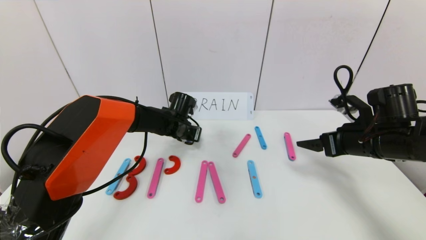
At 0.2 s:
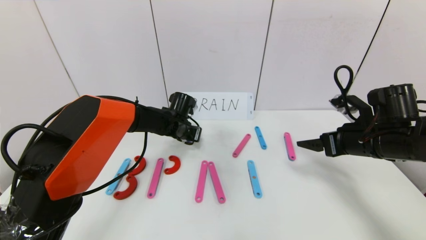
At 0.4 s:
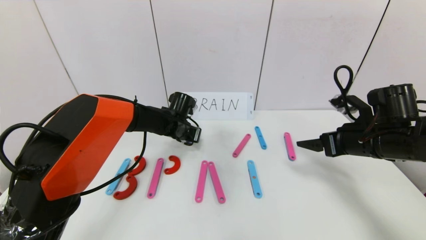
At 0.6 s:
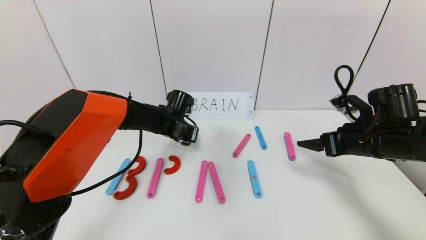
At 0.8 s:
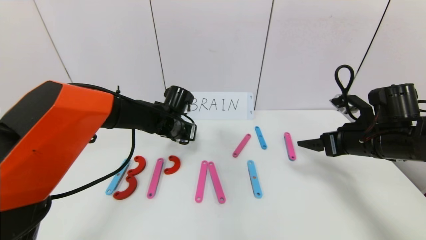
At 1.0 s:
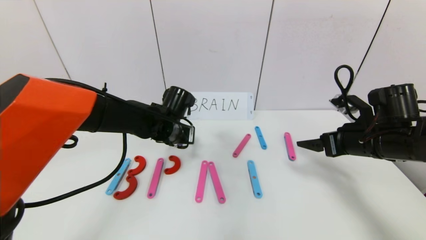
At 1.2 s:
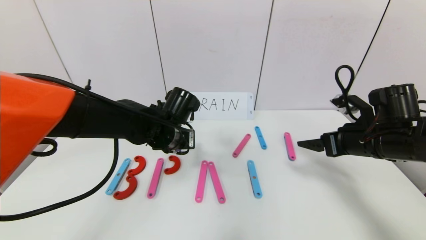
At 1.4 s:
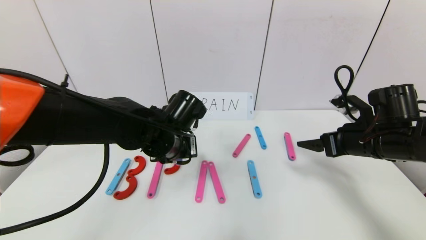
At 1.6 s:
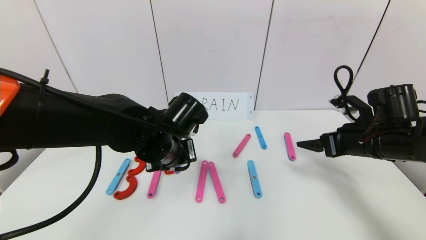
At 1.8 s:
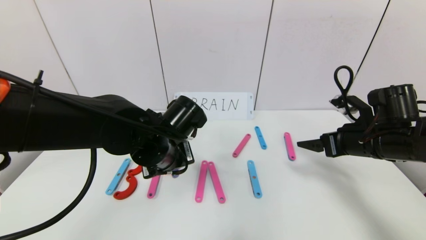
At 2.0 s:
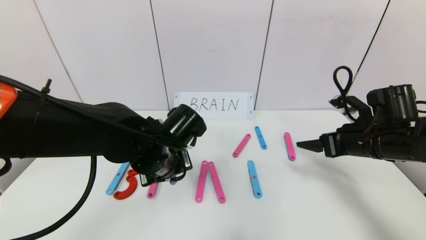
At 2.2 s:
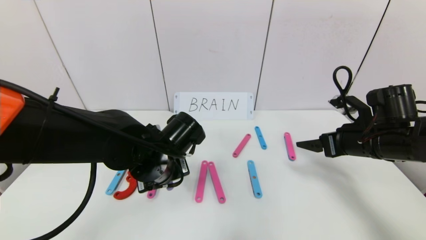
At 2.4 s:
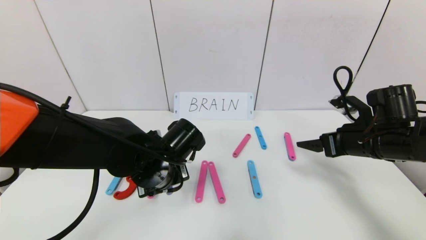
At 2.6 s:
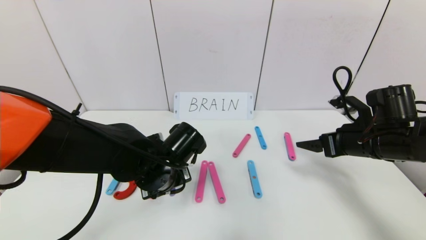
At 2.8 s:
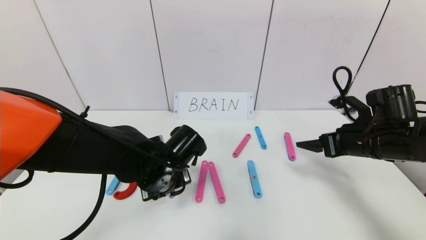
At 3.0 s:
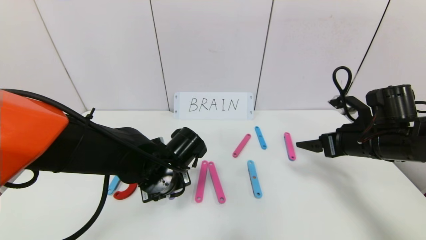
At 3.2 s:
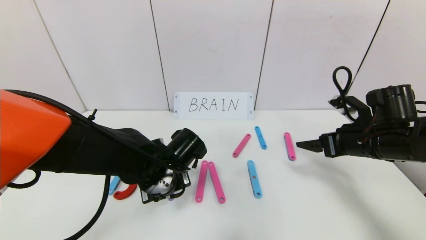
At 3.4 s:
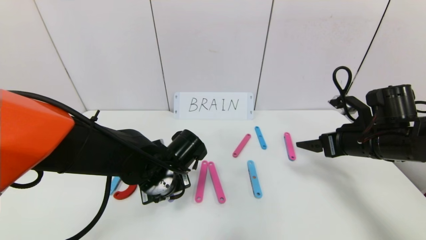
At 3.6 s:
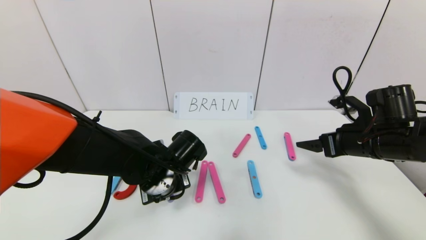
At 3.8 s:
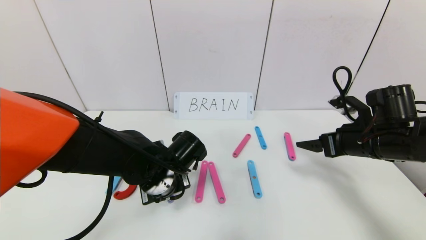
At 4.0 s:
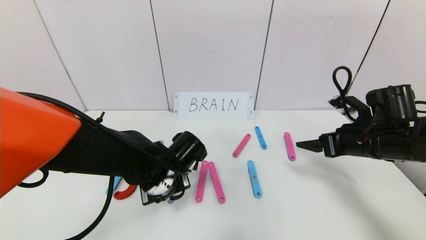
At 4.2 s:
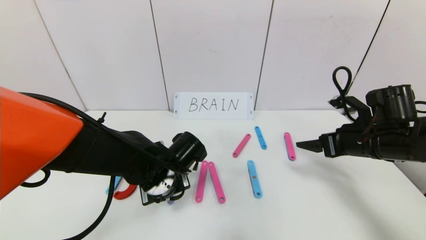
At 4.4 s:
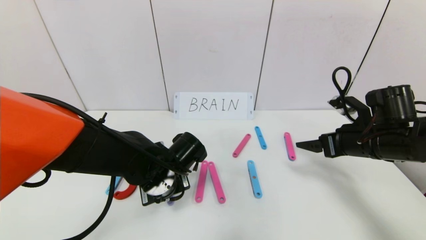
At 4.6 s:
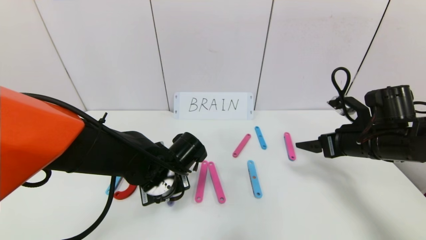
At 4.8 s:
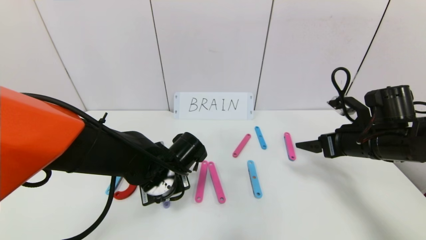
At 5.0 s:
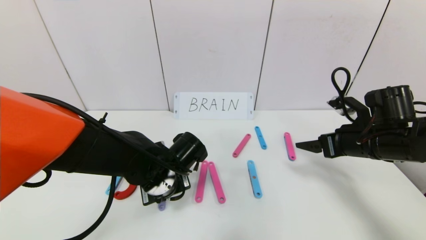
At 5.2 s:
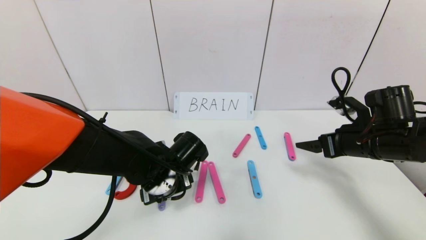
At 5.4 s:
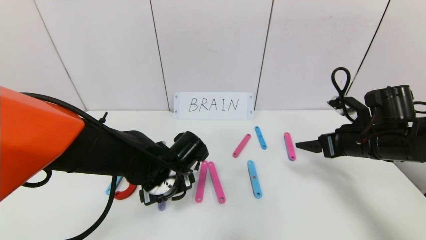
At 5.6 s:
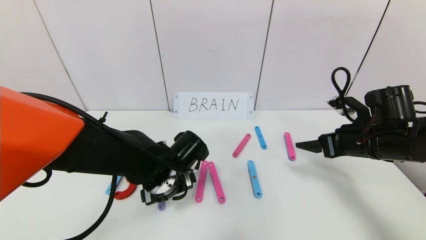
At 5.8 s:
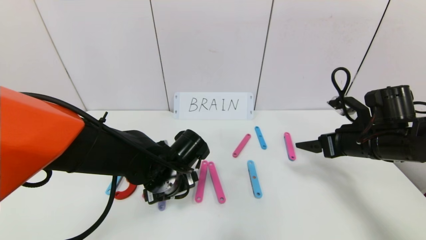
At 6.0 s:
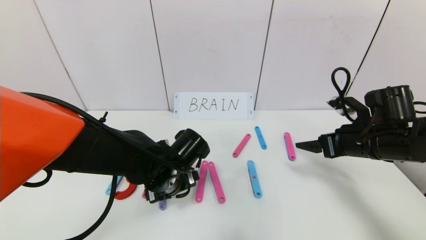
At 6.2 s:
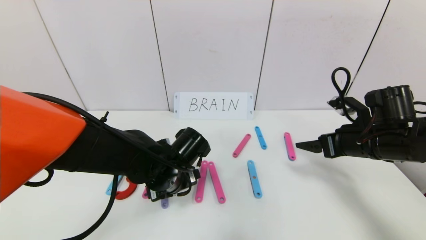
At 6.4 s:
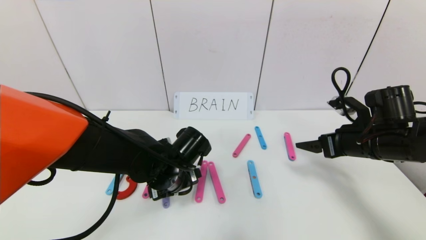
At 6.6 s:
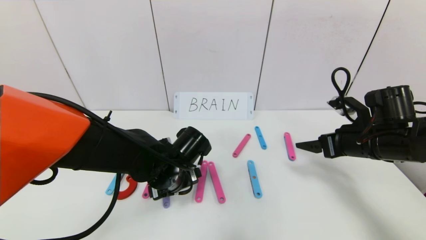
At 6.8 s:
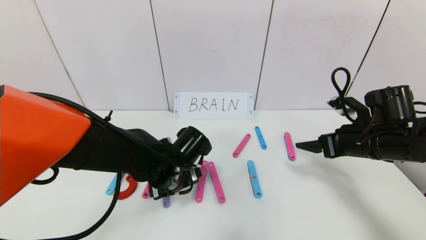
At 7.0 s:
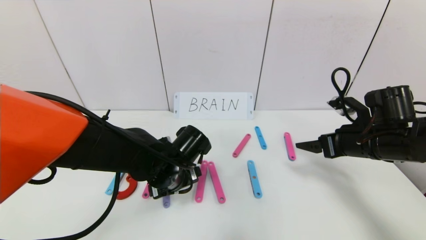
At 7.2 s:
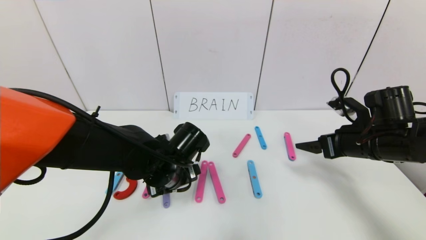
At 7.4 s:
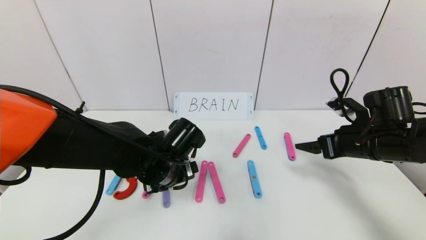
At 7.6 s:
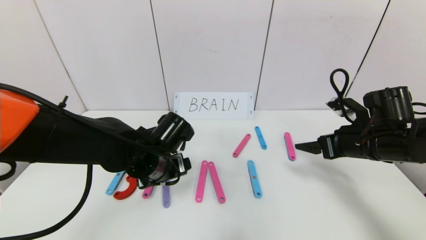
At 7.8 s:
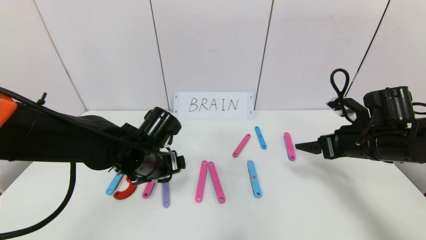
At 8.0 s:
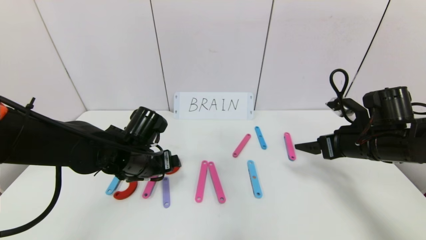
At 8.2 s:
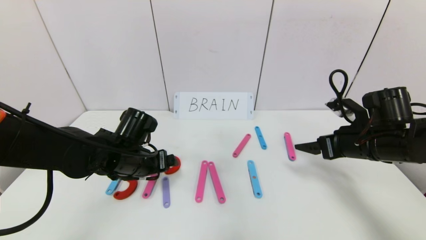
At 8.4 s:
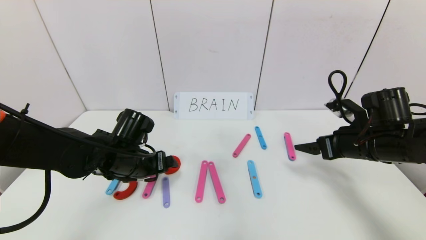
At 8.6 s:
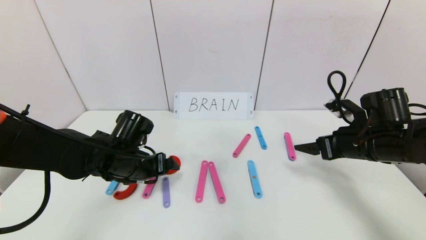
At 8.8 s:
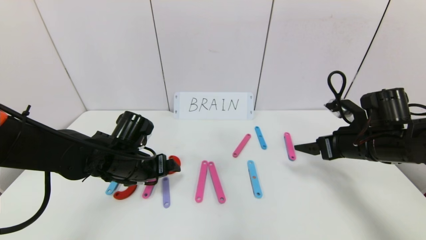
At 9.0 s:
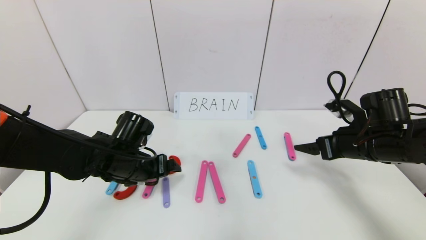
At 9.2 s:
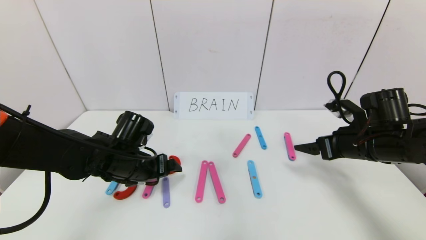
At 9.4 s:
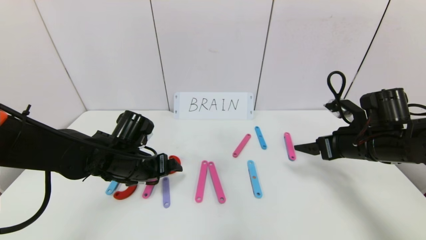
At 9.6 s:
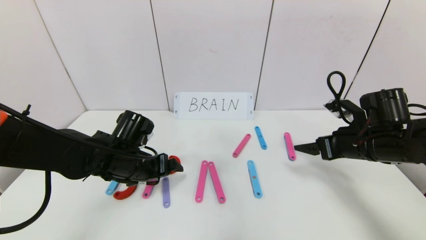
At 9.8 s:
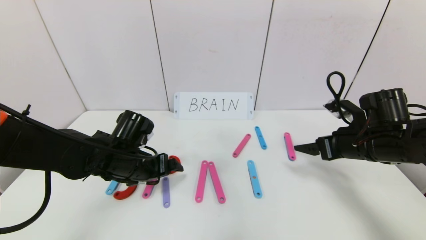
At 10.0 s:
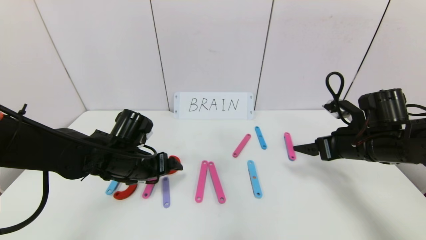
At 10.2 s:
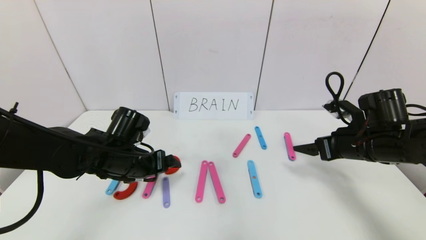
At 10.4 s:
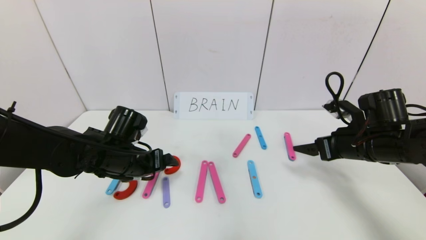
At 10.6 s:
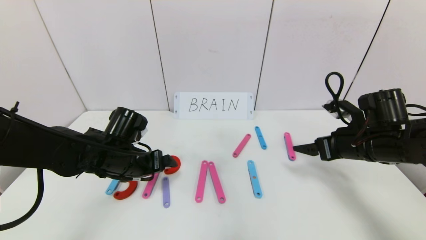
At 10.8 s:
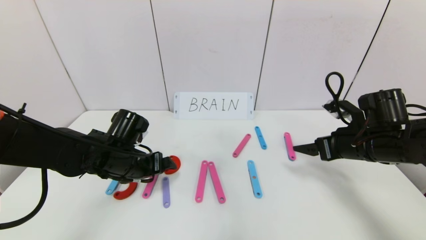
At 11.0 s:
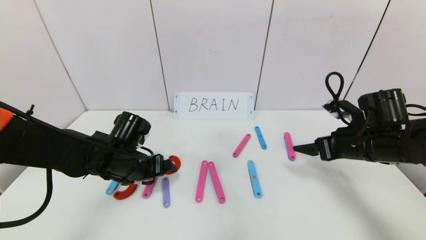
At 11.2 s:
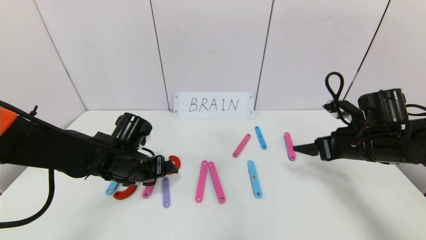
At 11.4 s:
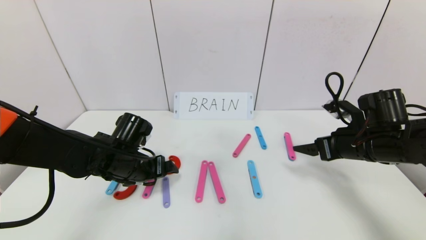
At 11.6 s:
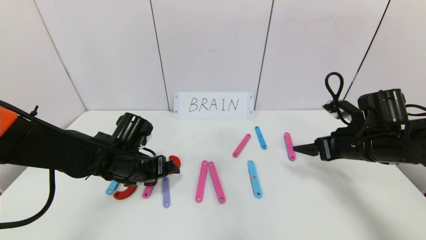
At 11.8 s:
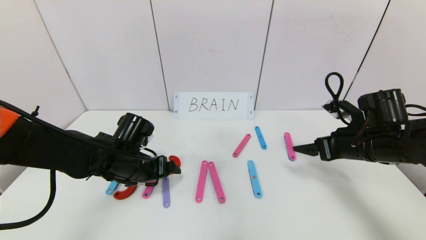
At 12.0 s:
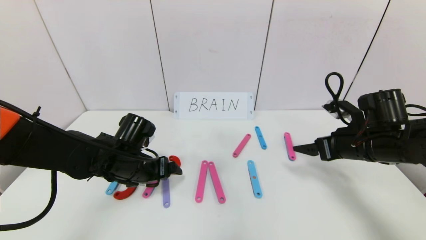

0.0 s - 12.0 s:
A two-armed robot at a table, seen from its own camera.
Task of the whole recording: rearrange the word baai as brain.
0.0 s - 1.6 s: The left gripper travels backward and upward by some 20 cm.
1.6 s - 3.0 s: The left gripper travels downward by roughly 5 cm.
3.0 s - 4.4 s: Both grippers stay about where they are.
4.4 s - 6.0 s: The left gripper opens up.
6.0 s - 7.6 s: The grippers stay close to where they were, moving slightly.
7.6 s - 9.0 s: The left gripper moves to the left, about 5 cm.
9.0 s - 10.4 s: Both grippers stay put.
10.4 s - 12.0 s: There are only small adjustments of the grippers.

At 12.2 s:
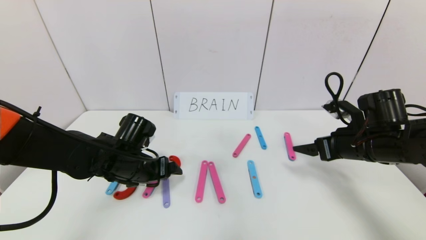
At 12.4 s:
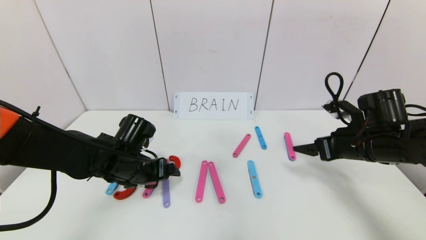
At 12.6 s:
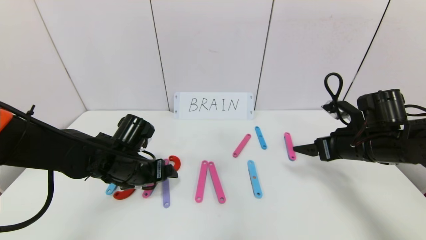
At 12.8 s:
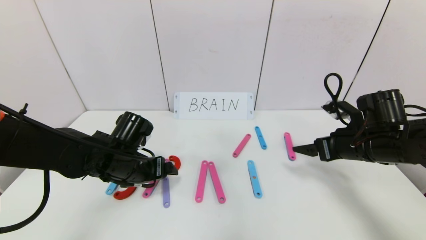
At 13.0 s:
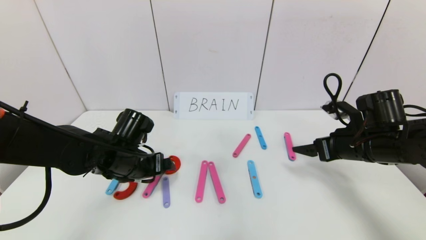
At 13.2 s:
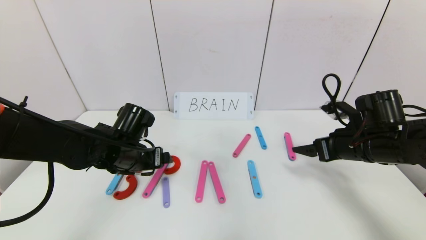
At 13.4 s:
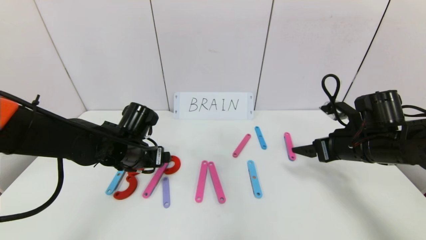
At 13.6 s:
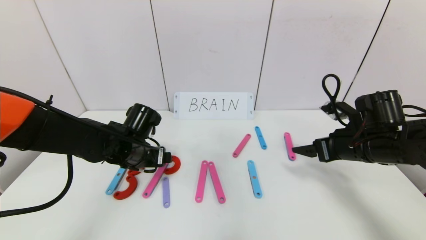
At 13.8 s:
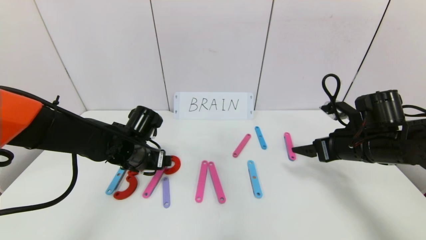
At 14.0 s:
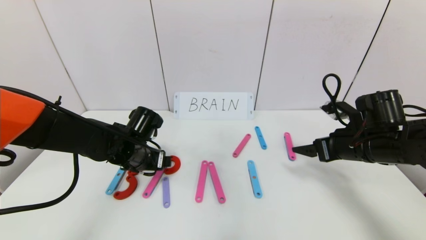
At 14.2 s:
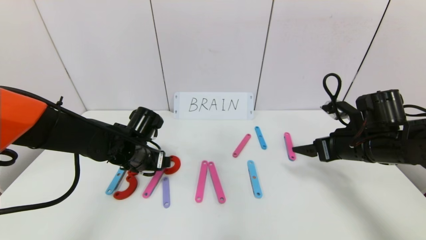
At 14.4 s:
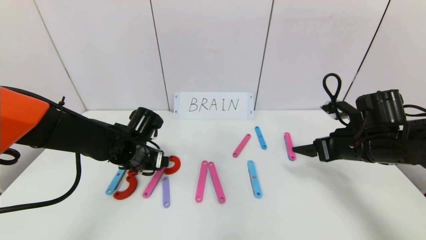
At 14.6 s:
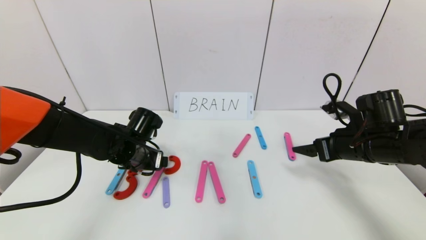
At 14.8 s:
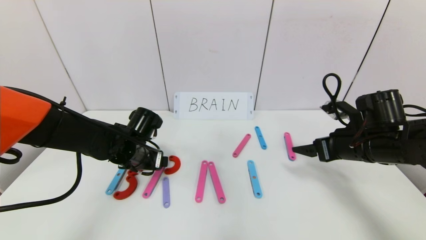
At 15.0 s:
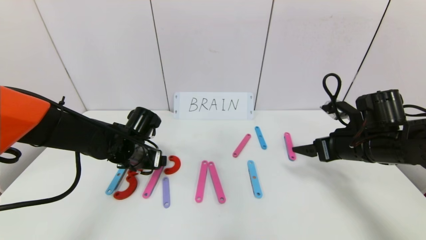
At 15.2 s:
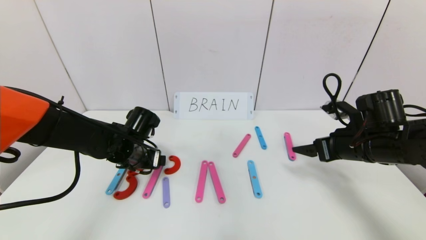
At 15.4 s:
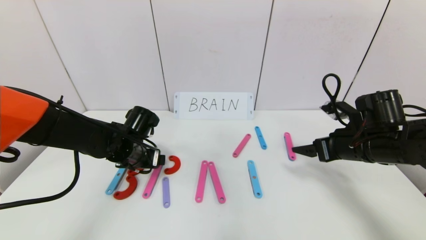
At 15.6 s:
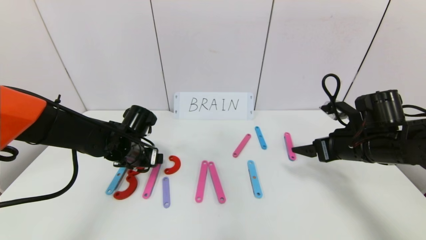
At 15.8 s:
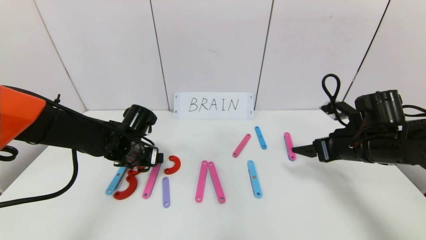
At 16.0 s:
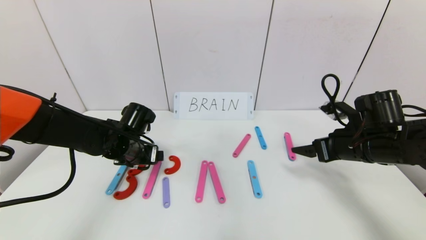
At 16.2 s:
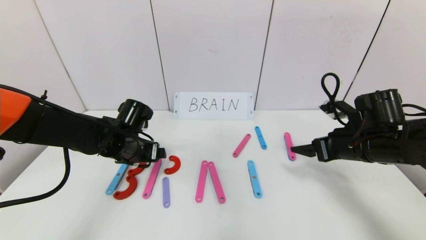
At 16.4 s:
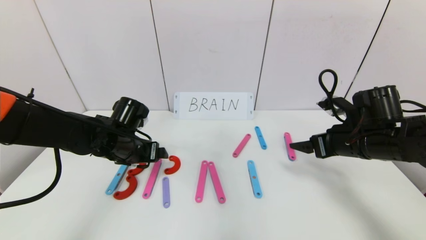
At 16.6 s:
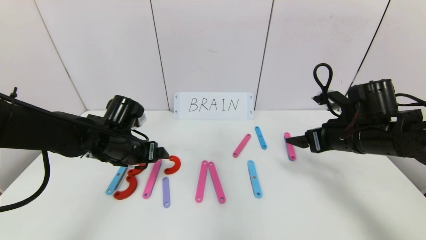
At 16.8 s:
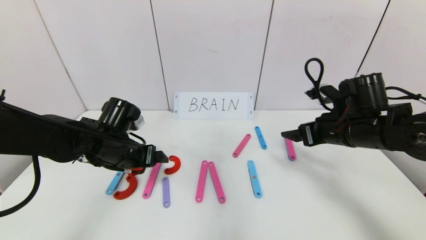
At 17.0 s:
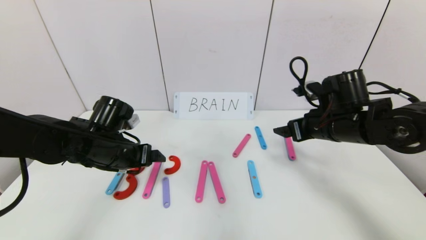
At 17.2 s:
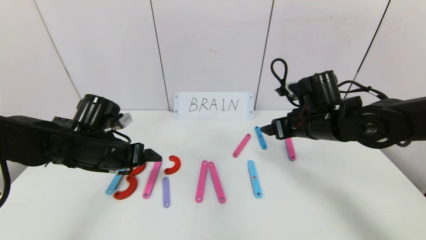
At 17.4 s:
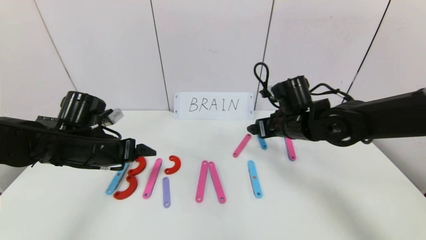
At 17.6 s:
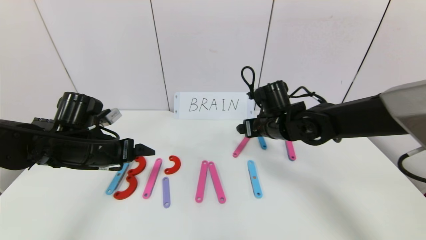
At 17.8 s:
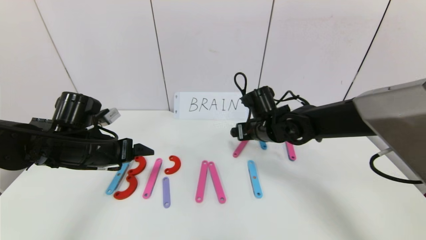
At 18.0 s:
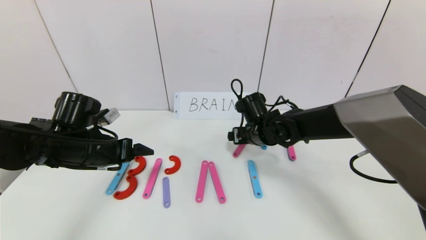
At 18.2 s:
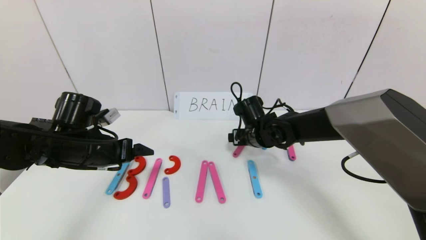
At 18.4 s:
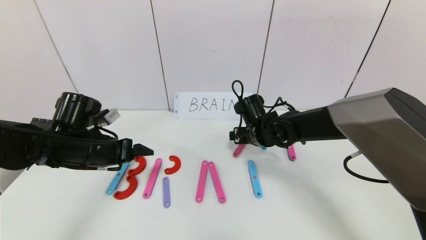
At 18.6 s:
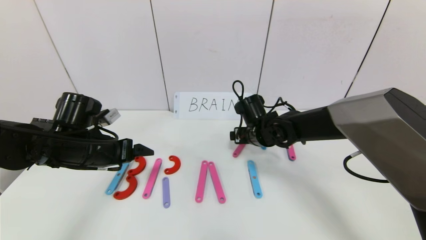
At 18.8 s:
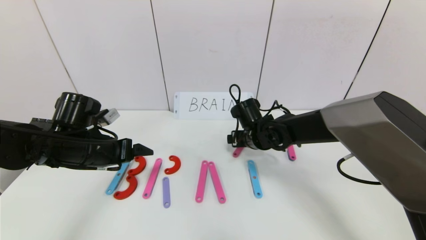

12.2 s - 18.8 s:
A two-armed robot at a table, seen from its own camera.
Task of the whole recording: rearrange the word baai as brain.
Step, 12.2 s - 16.0 s: Place the character R between first character B and third character A.
13.8 s - 15.4 s: The grippers stay close to where they were, moving slightly.
15.4 s - 17.2 s: The right gripper goes about 10 cm to the left; the left gripper changes place by some 10 cm.
17.2 s - 18.8 s: The right gripper shifts roughly 15 cm to the left, downward and forward.
